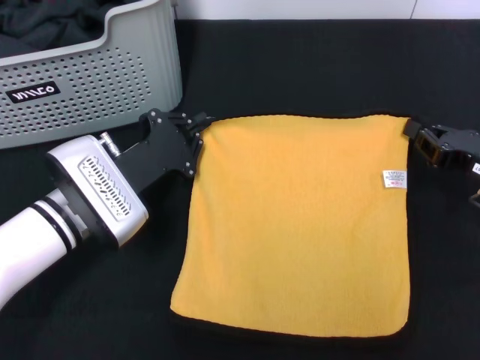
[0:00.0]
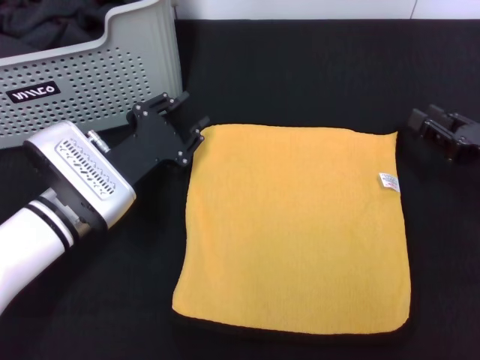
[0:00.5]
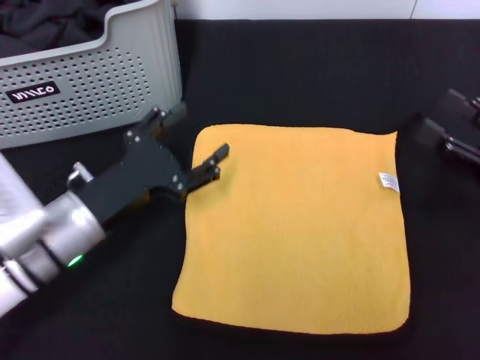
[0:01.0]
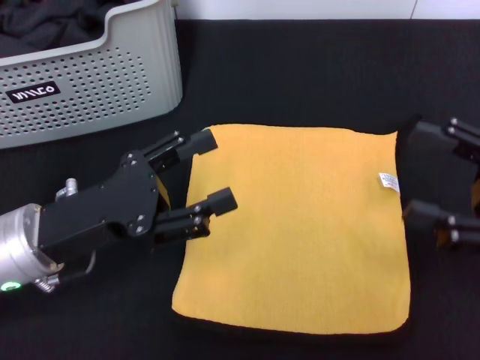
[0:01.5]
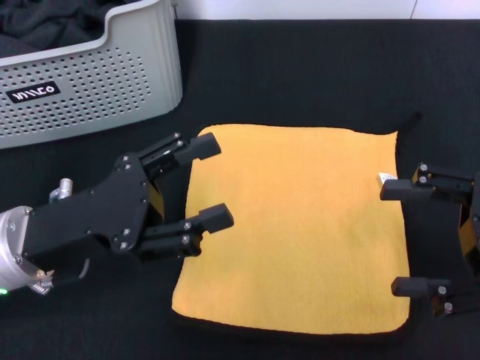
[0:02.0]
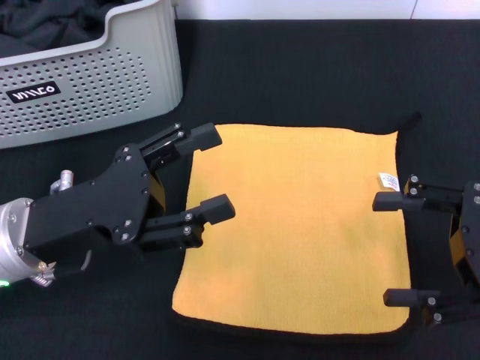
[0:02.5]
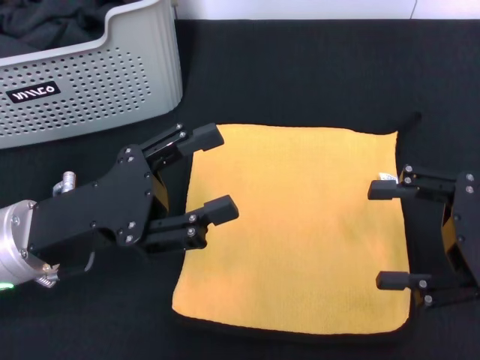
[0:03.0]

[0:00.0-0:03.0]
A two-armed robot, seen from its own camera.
Task of the whole recording: pick up the towel from the storage box and lay it flat on the black tablecloth.
0:00.0 to 0:01.5: The right gripper is displaced upward and backward by approximately 10 cm, and opens up, while the left gripper travels backward and upward by roughly 10 cm, and opens up.
0:01.5 to 0:03.0: The grippers stay close to where they were, moving slightly.
